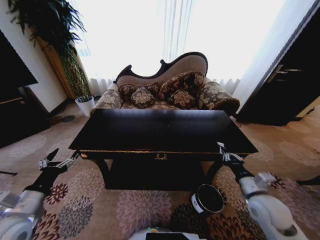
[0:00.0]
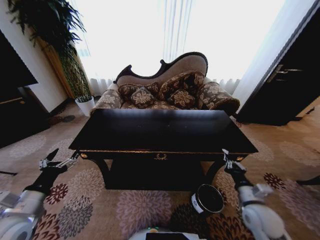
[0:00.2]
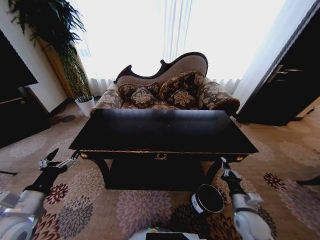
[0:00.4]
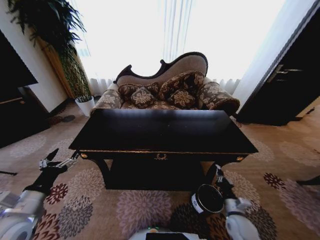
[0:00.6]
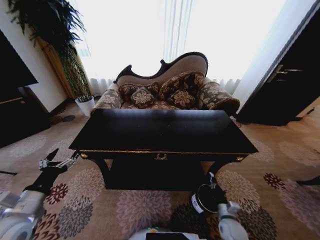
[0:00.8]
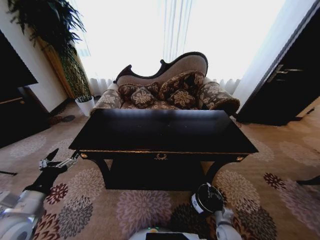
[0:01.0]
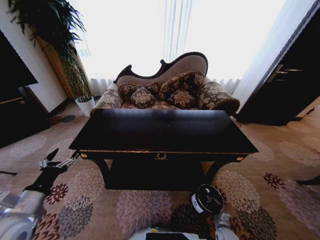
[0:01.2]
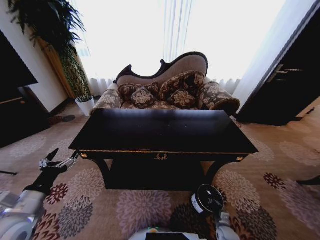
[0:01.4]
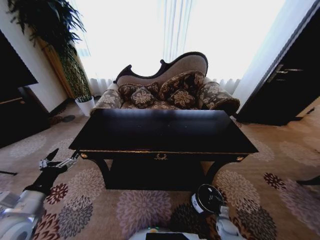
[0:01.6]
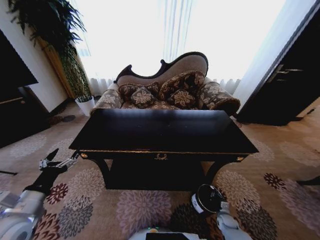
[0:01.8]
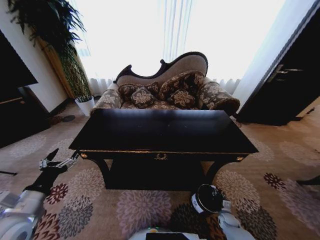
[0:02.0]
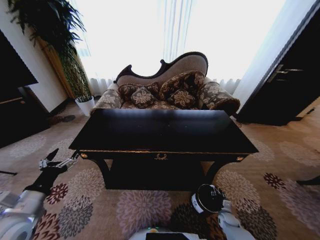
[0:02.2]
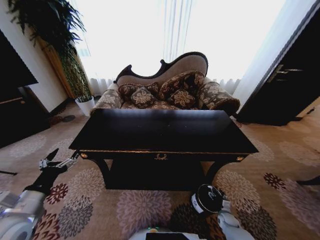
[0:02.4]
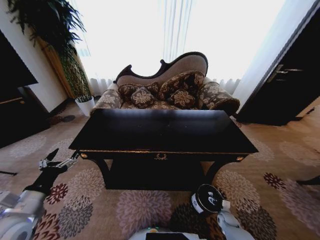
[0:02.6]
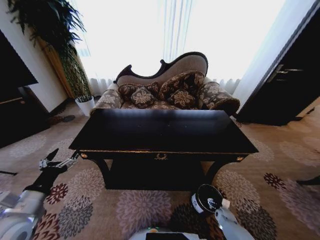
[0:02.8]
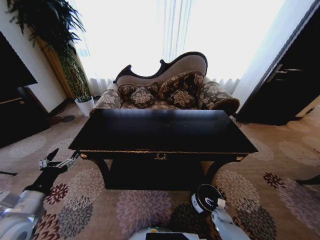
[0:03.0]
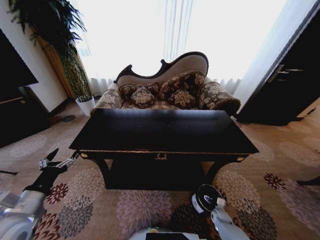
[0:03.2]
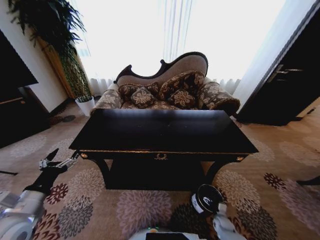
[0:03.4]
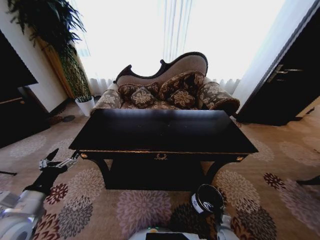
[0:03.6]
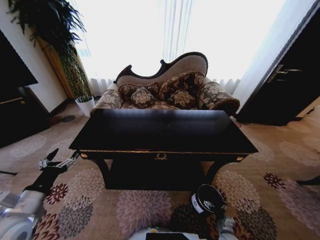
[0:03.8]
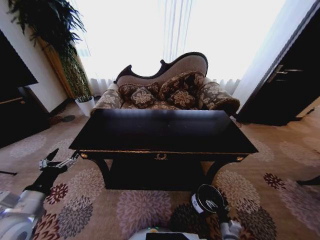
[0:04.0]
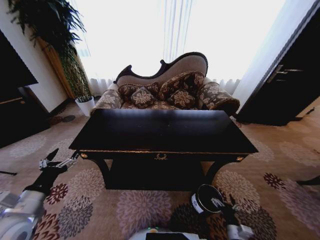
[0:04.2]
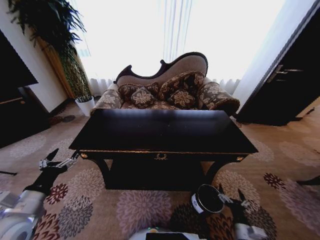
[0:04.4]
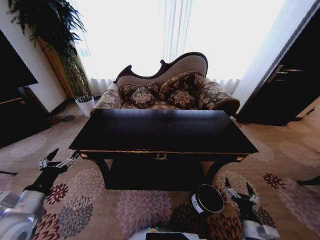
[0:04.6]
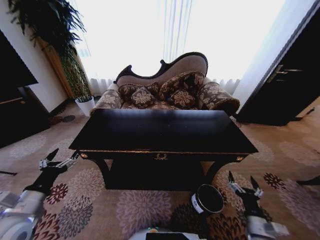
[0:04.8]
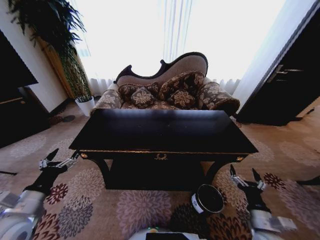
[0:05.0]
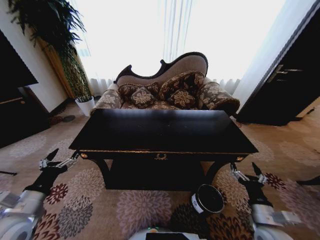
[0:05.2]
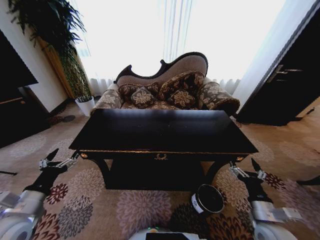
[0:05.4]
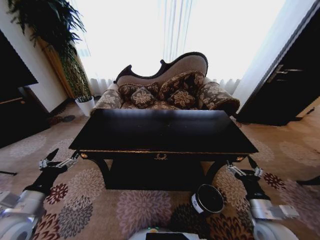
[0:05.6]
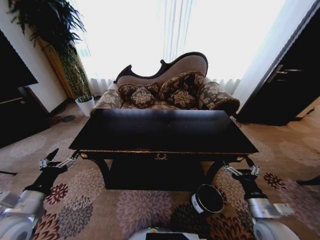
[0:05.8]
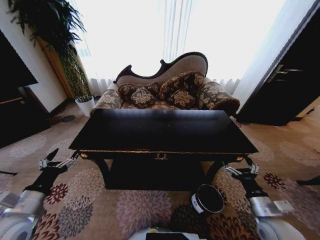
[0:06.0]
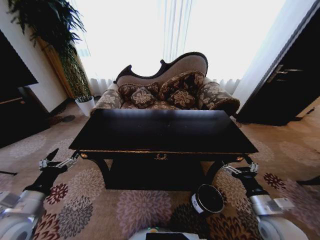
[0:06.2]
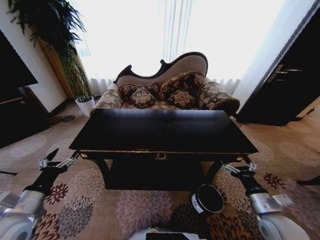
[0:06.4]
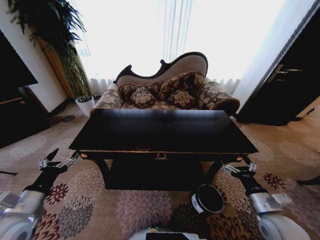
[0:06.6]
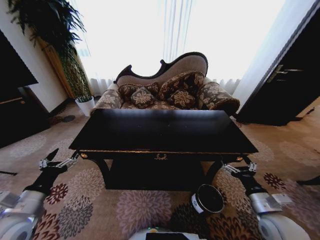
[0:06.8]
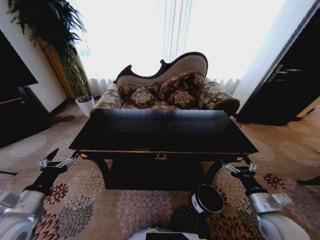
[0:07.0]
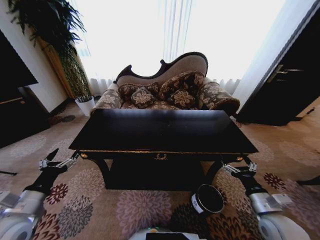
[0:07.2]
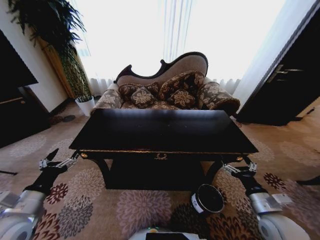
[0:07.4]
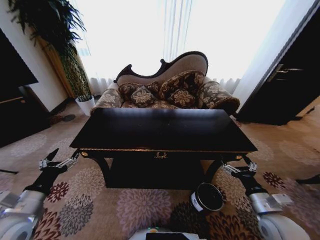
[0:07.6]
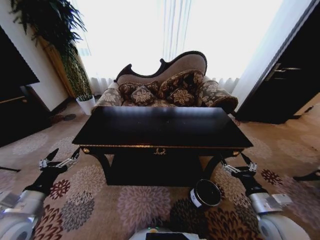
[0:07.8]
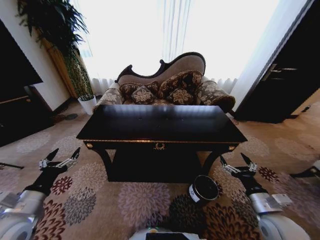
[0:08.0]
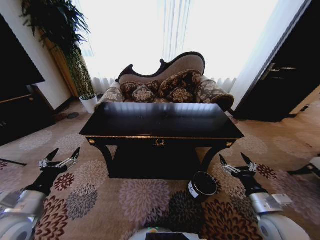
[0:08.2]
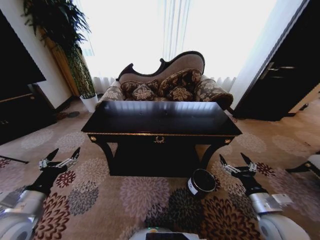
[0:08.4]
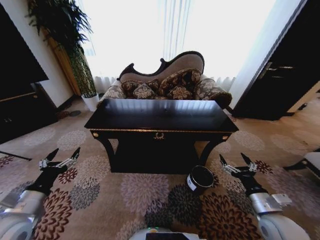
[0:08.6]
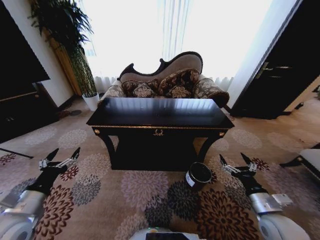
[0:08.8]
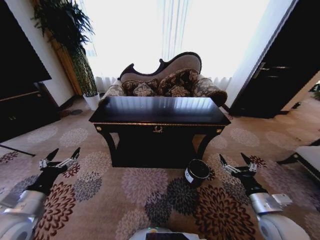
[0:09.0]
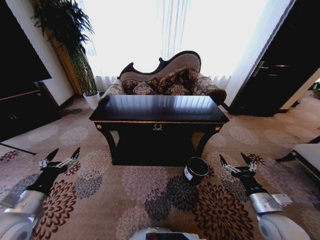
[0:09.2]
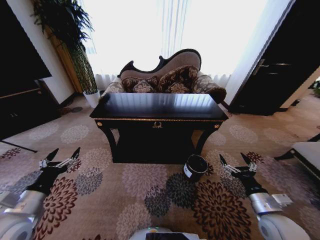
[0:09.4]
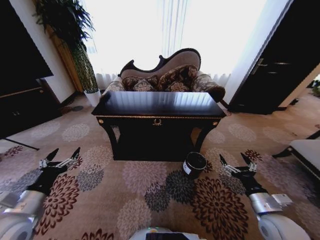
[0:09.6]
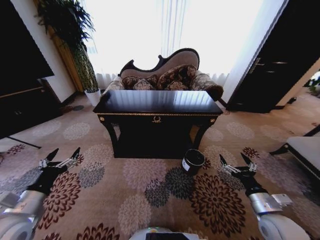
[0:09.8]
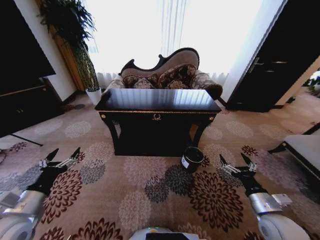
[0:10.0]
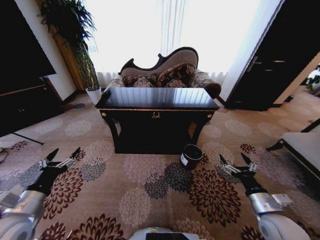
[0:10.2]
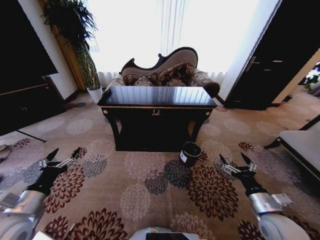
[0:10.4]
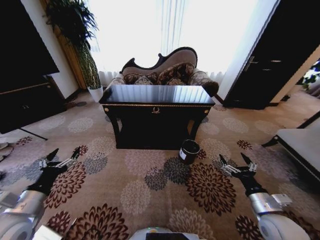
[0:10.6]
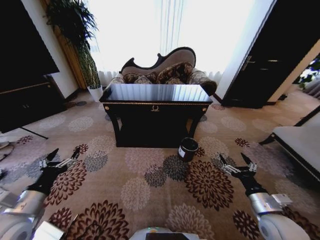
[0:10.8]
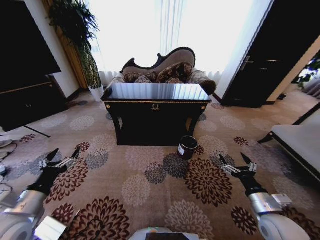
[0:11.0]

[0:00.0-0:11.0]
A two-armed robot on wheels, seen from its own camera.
Task of the whole recording: Move to the front of the table and place the trash on the table into the trash bin.
0:00.0 to 0:01.6: The right gripper goes some 35 cm downward.
0:01.6 to 0:03.2: The right gripper is displaced forward by approximately 5 cm, and opens up.
0:03.2 to 0:04.8: The right gripper travels upward and backward by approximately 30 cm.
0:04.8 to 0:06.2: The right gripper is displaced upward by some 10 cm.
0:06.2 to 0:07.8: Both grippers stay put.
